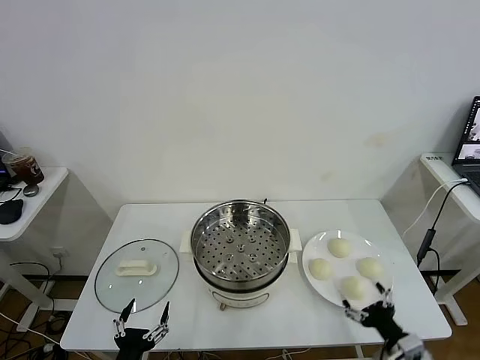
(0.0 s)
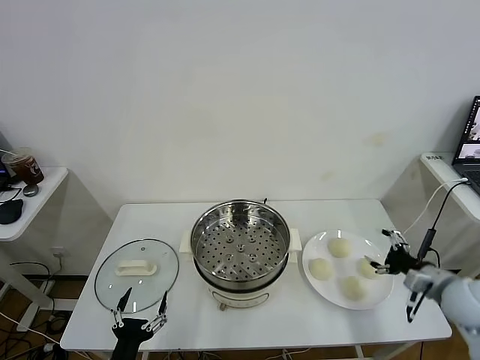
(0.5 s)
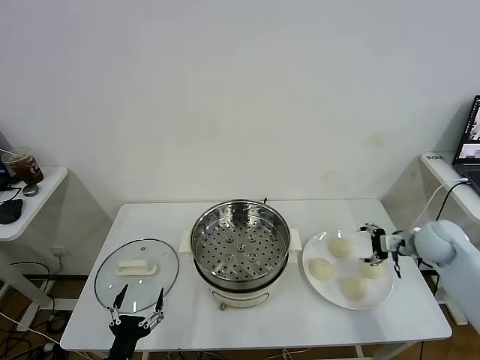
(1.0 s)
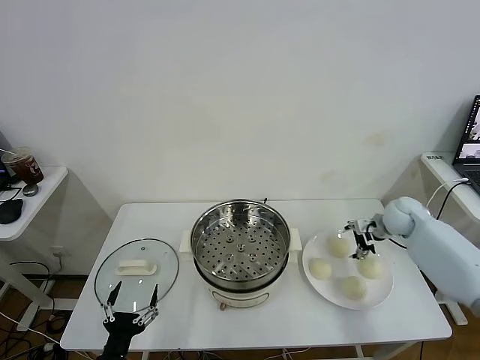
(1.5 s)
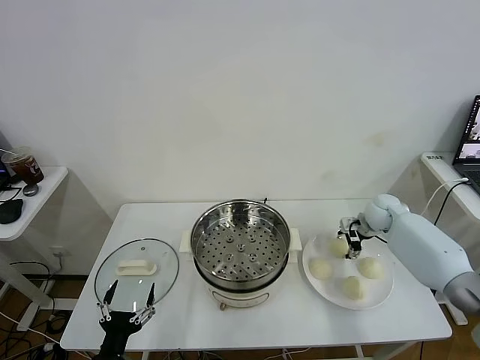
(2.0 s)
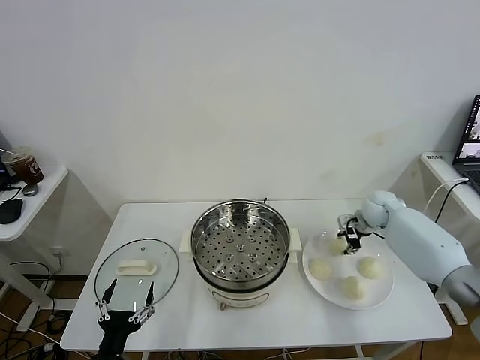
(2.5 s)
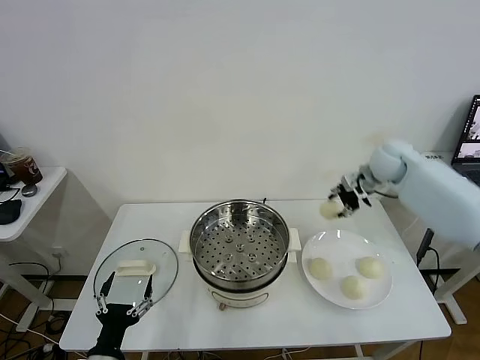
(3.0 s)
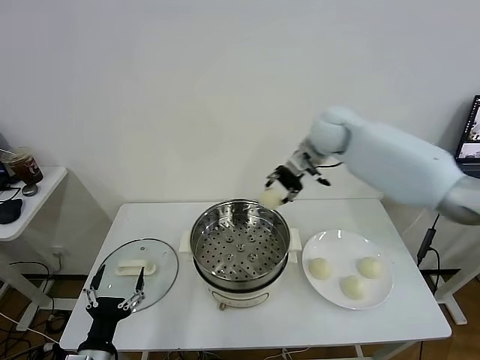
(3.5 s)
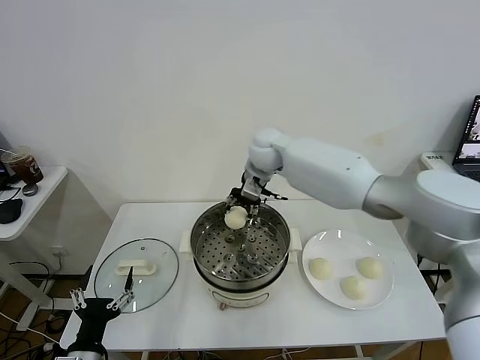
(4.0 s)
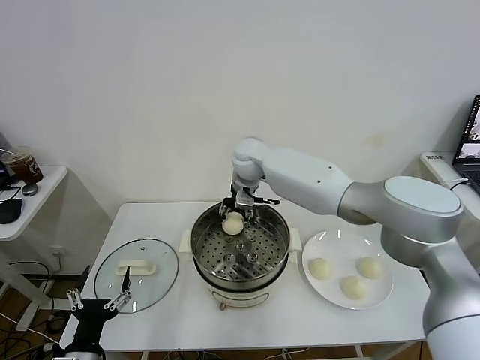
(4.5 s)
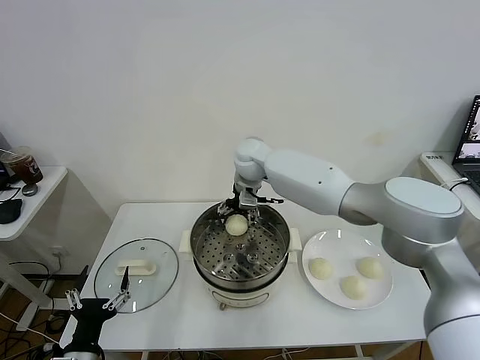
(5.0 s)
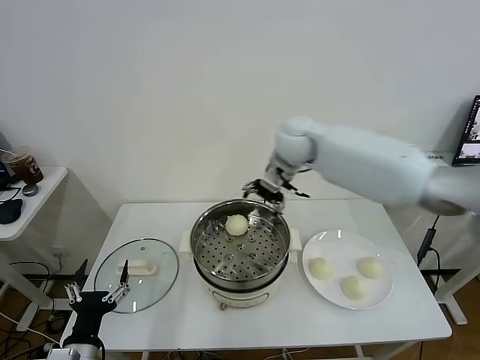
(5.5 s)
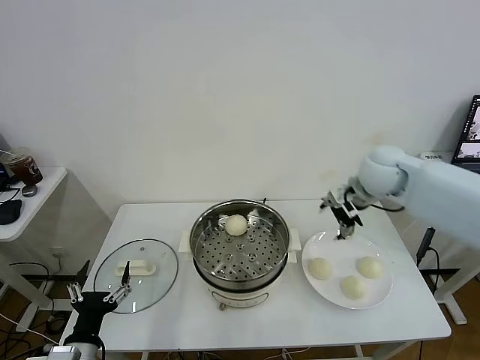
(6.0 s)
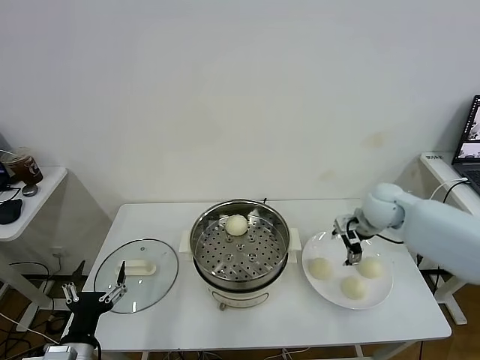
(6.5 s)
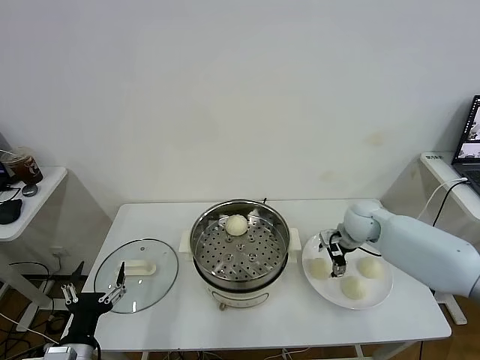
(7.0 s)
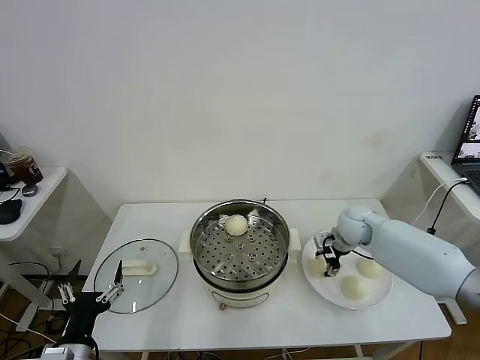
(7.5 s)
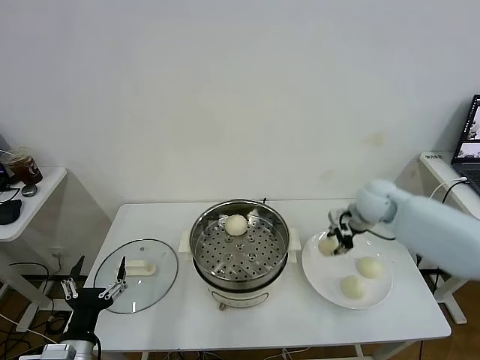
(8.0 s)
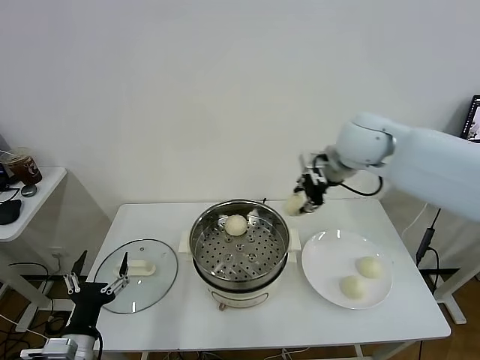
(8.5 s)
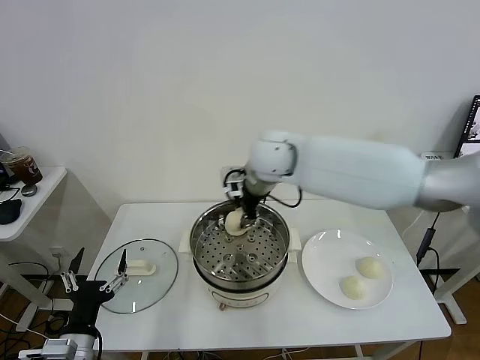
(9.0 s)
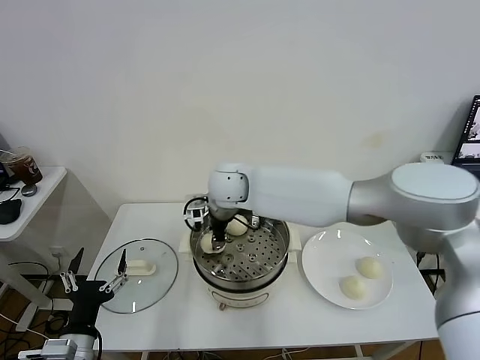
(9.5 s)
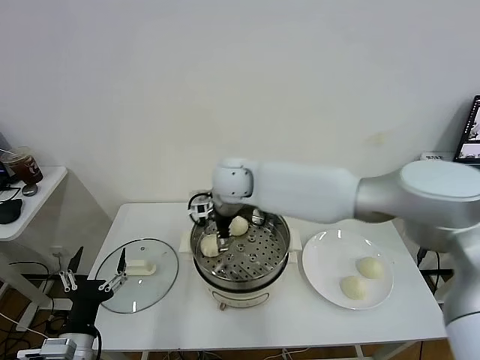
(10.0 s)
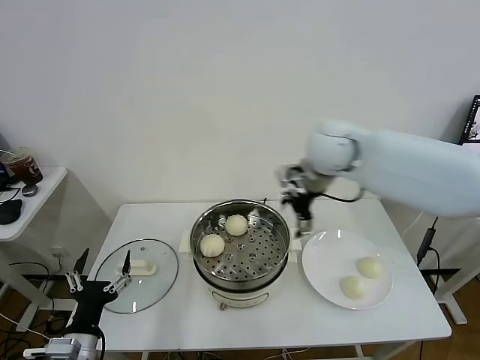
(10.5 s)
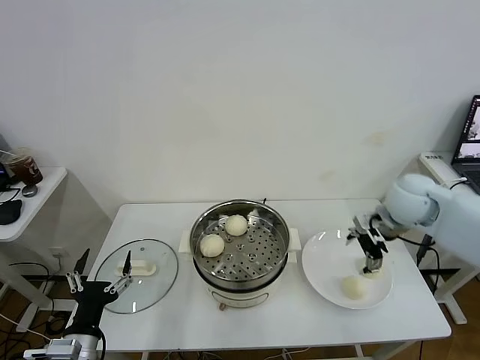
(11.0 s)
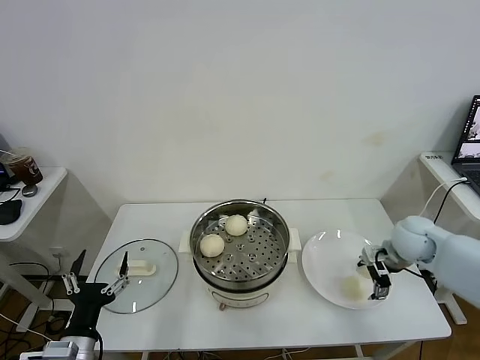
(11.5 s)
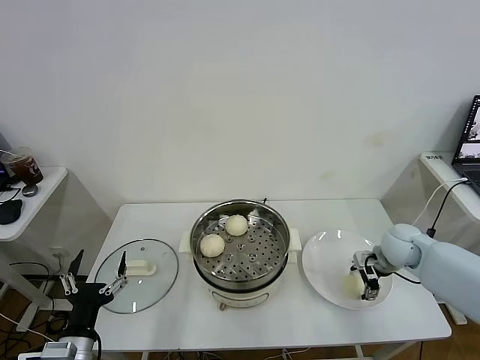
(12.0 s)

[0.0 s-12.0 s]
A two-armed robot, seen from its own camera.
Task of the whole recording: take steamed baozi put them in steamer.
Step, 0.0 to 2.0 s: Grasp the baozi in the plate with right gripper.
Step, 2.5 to 5.0 s: Place the baozi on the steamer with right gripper.
Step, 5.5 to 7.5 s: Grasp the baozi in the plate with right gripper.
Step, 8.0 to 10.0 s: Place the baozi on the steamer with right gripper.
2.0 to 4.0 s: The right gripper travels to the left and upward by roughly 35 cm.
4.0 to 6.0 s: The right gripper shifts roughly 25 cm to the right, and opens.
6.0 to 8.0 s: The right gripper is displaced downward by roughly 5 cm, and closes its fingers.
8.0 to 10.0 s: The right gripper shifts about 30 cm to the left, and opens.
10.0 to 12.0 s: The right gripper is displaced to the right and downward by some 40 cm.

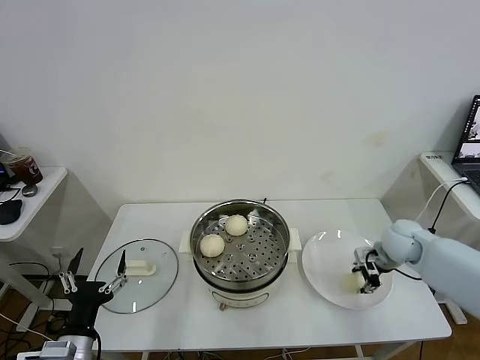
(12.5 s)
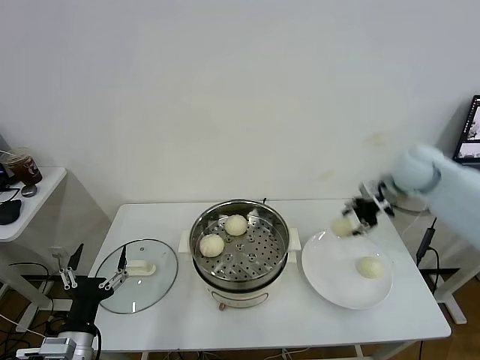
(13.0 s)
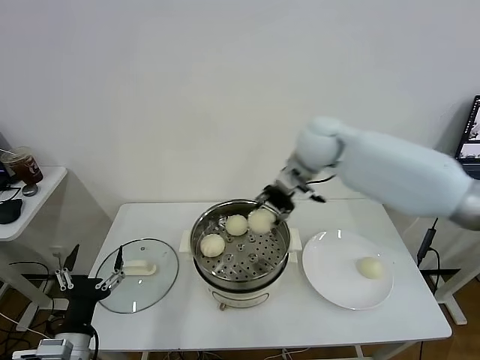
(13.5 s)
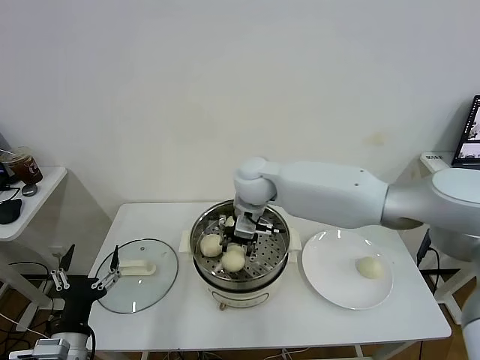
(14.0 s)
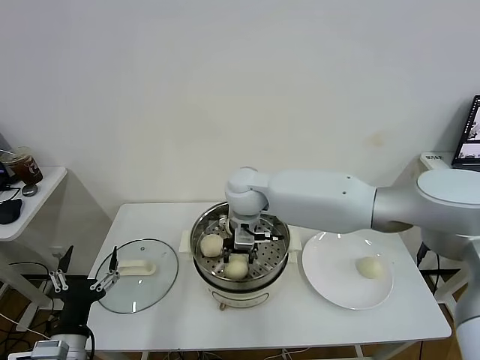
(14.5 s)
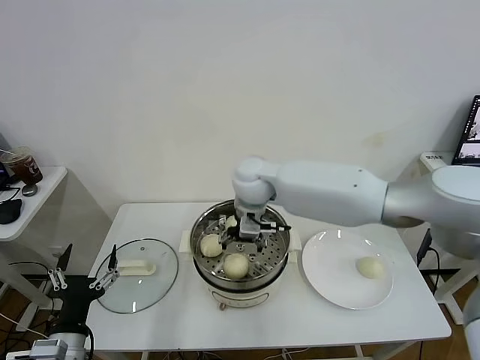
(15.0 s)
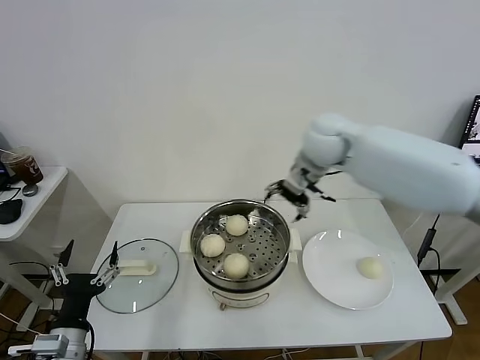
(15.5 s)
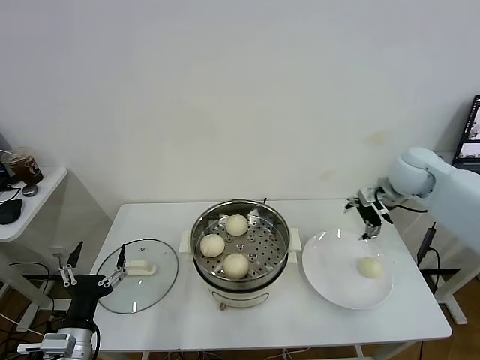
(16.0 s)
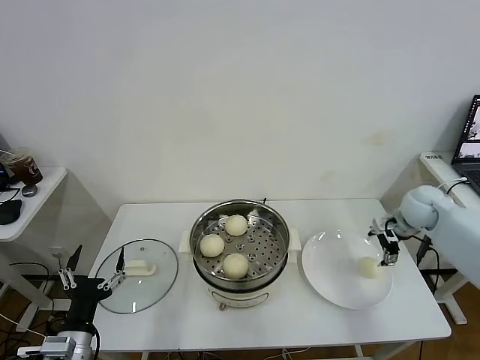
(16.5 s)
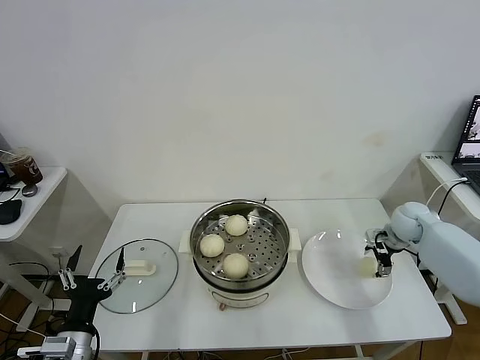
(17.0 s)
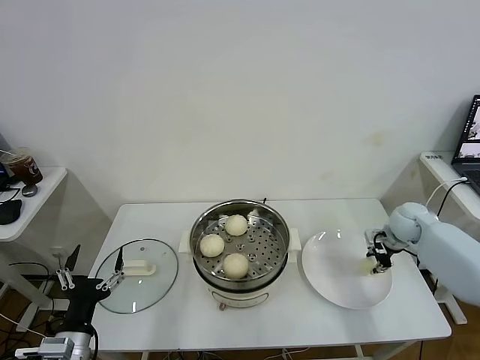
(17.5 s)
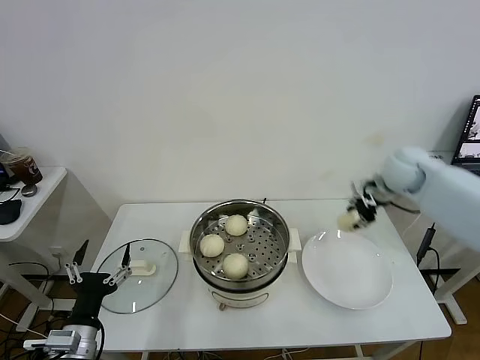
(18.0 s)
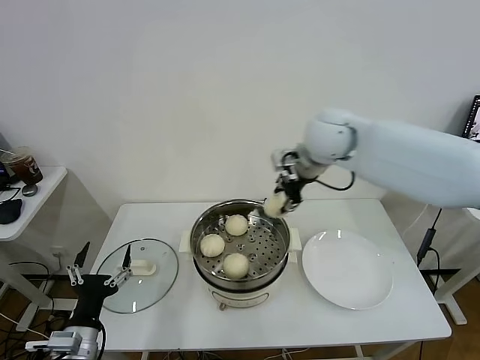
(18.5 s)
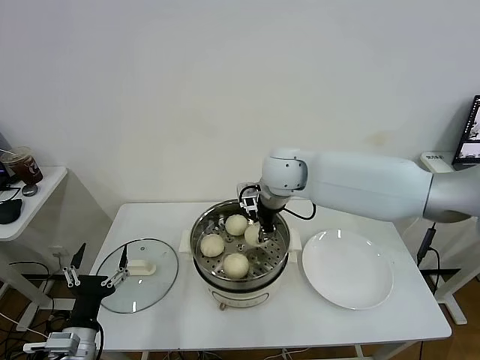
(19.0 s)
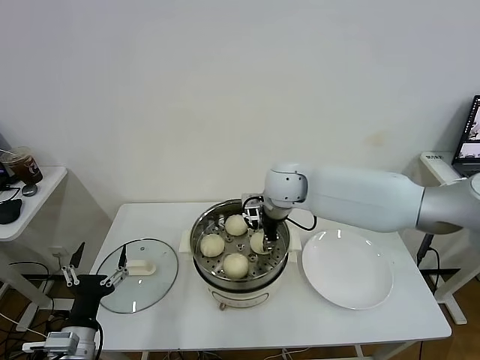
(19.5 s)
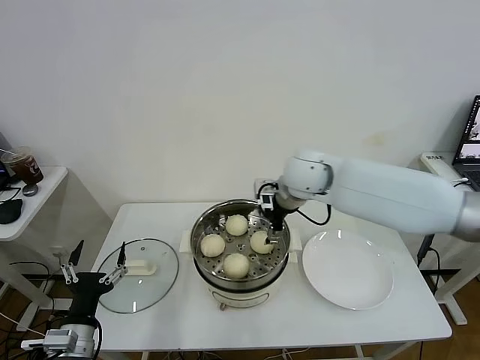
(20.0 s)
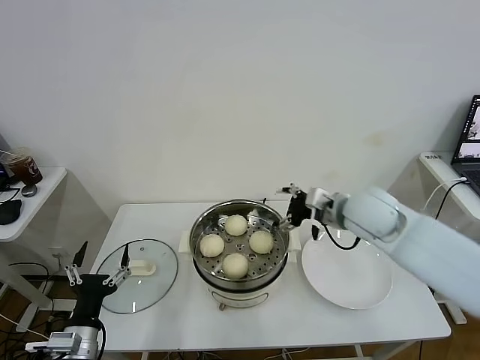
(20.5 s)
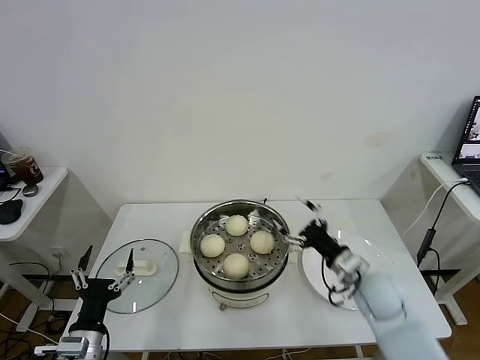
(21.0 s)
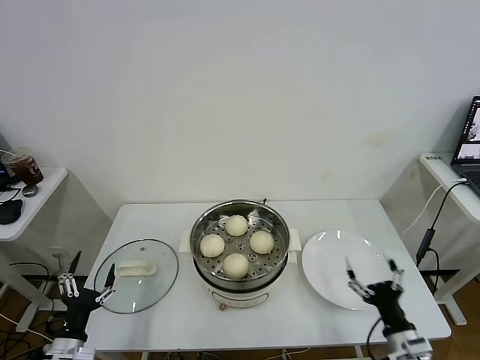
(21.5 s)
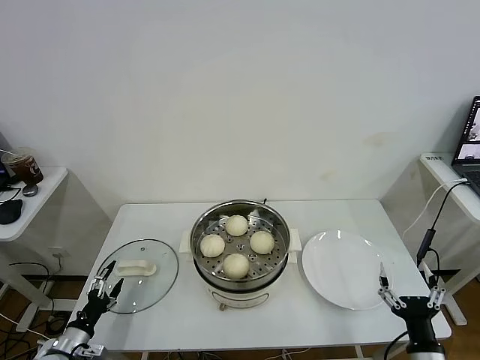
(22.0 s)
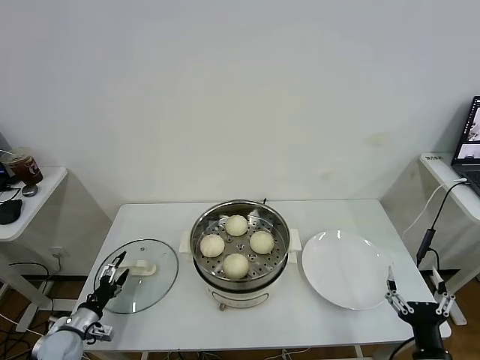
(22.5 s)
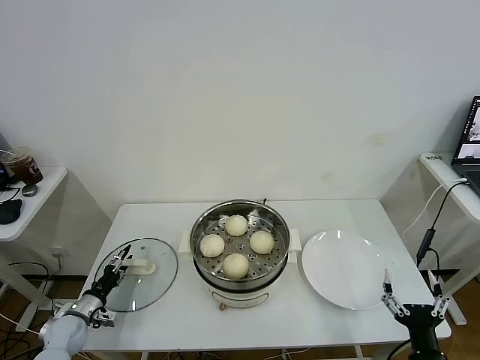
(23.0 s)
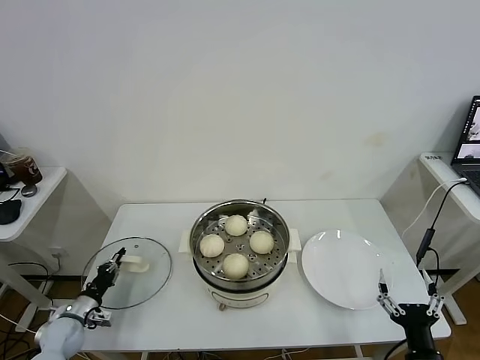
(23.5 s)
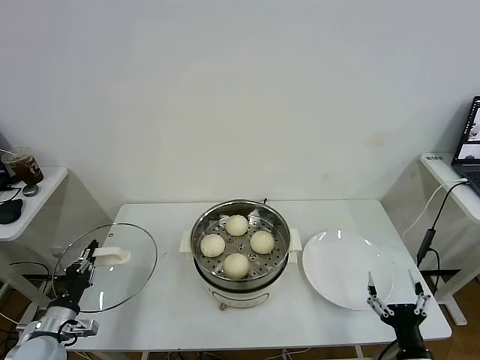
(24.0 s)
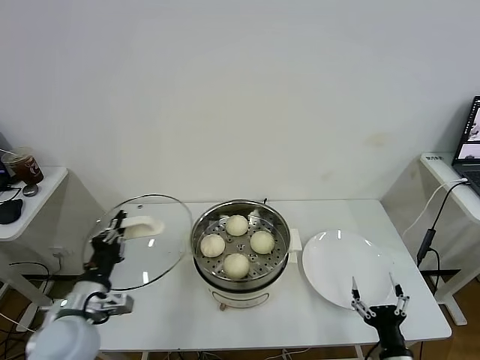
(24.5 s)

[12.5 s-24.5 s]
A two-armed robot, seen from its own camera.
Task of the whole recording: take steamed baozi put them in steamer.
Step, 12.5 to 15.0 s: Place the baozi on the steamer with right gripper.
Step, 15.5 to 17.0 s: Grasp the baozi in the plate with right gripper.
Step, 17.5 to 20.0 s: Place the baozi on the steamer with right gripper.
Step, 20.5 to 23.5 s: Grasp the baozi in the plate with right gripper.
12.5 to 14.5 s: The right gripper goes roughly 40 cm to the left.
14.5 to 16.5 s: The right gripper travels to the right by some 40 cm, and opens its fingers.
16.5 to 18.5 s: The right gripper moves to the left and upward, approximately 30 cm, and closes.
18.5 to 20.5 s: The right gripper moves downward, backward and to the right, some 15 cm, and opens up.
20.5 to 22.5 s: The left gripper travels downward, to the left and forward by about 20 cm; the right gripper is displaced backward and downward by roughly 40 cm.
22.5 to 24.5 s: The right gripper changes place by roughly 5 cm; the left gripper moves upward and to the right, about 25 cm, and closes up.

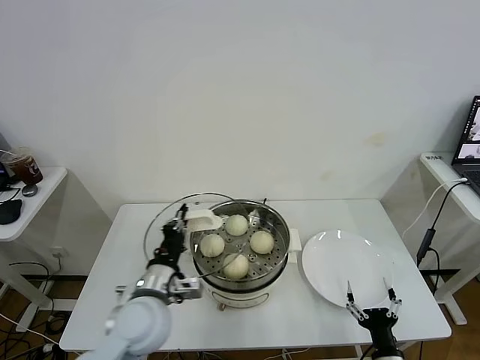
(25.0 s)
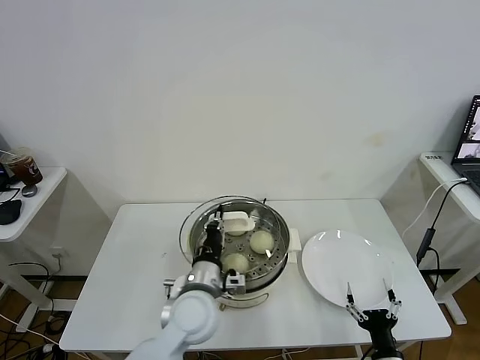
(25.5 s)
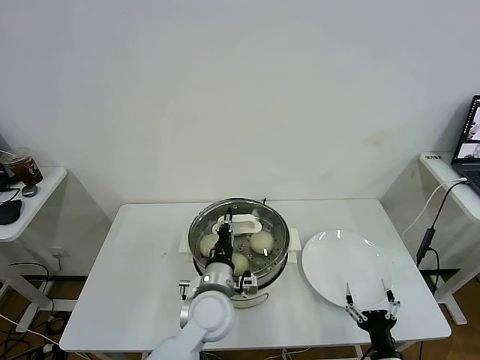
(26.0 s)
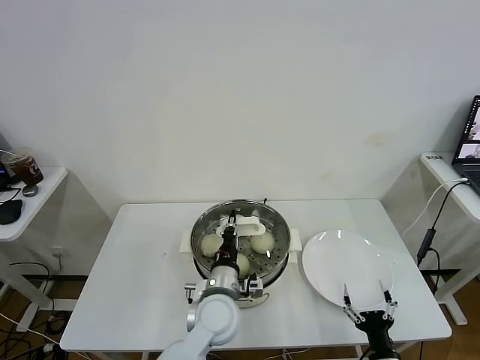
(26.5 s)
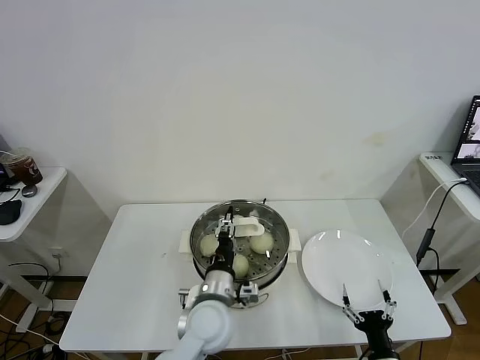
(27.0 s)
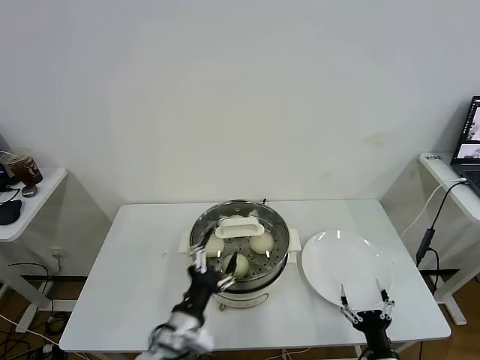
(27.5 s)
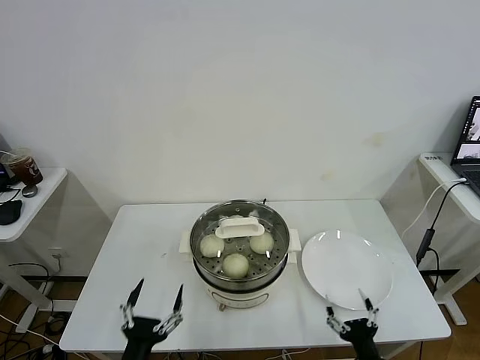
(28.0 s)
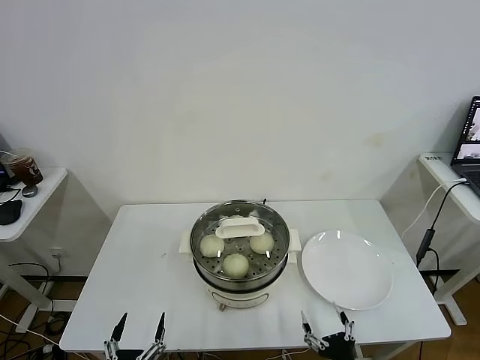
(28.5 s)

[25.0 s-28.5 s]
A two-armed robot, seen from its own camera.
Task of the whole recording: take steamed baozi put them in steamer.
Step, 25.0 to 27.0 s: Place the pot lid on the steamer with left gripper.
25.0 to 27.0 s: The left gripper moves to the right and downward, about 15 cm, and opens its fingers.
27.0 to 28.5 s: The right gripper travels to the left by roughly 5 cm; the left gripper travels backward and to the left by approximately 30 cm, and opens its fingers.
